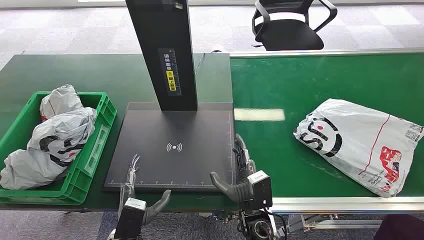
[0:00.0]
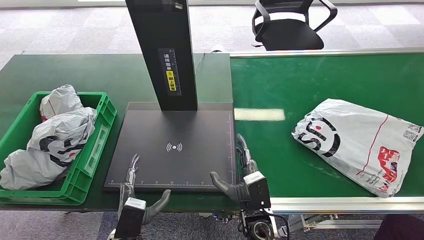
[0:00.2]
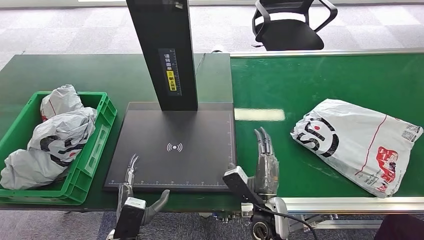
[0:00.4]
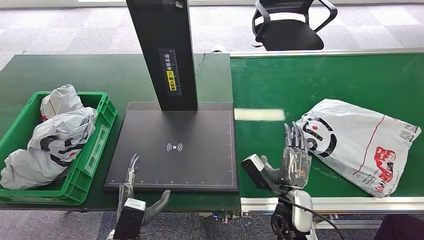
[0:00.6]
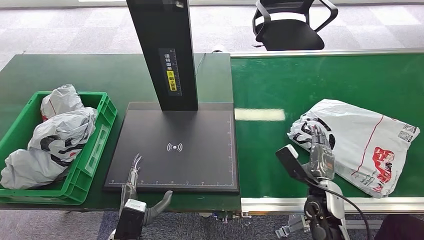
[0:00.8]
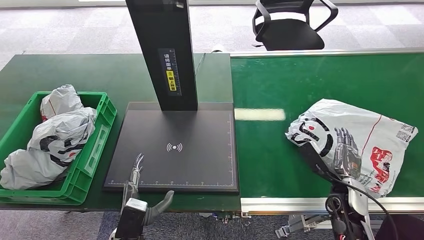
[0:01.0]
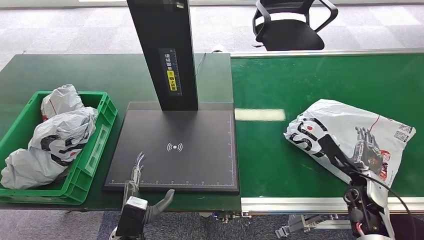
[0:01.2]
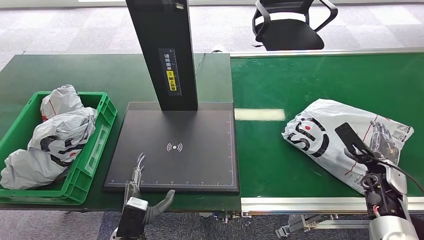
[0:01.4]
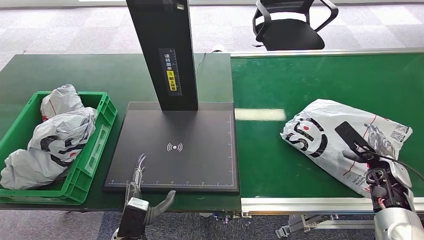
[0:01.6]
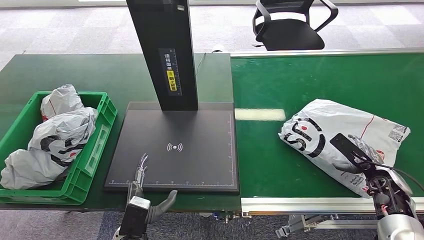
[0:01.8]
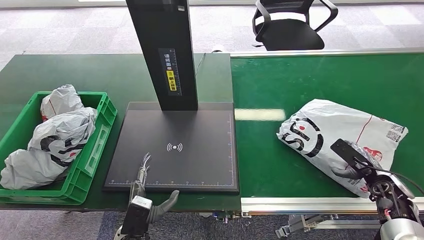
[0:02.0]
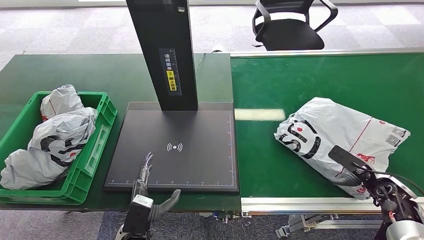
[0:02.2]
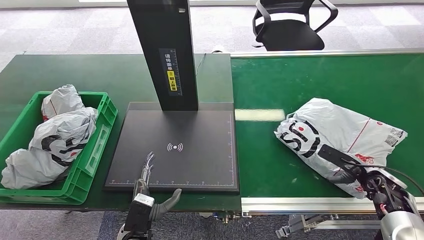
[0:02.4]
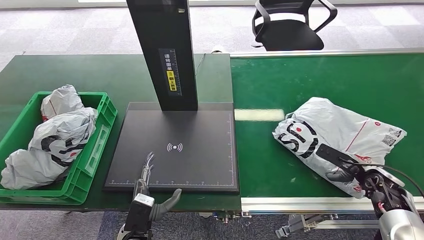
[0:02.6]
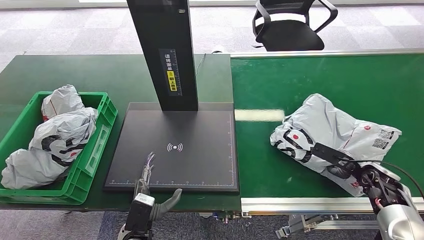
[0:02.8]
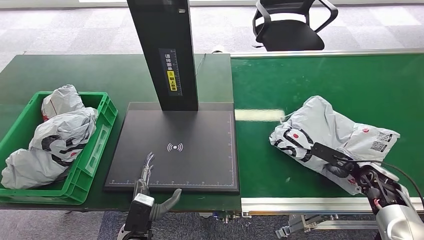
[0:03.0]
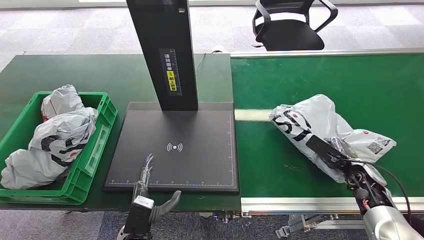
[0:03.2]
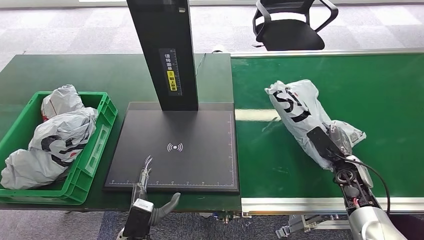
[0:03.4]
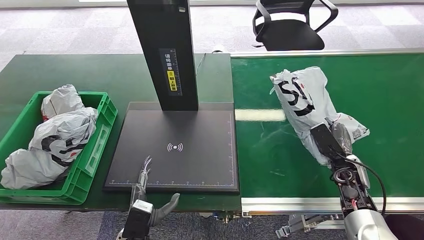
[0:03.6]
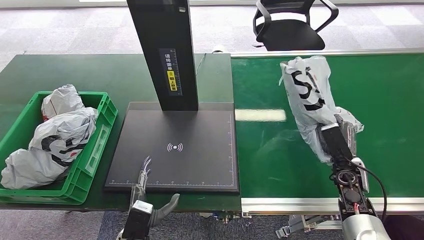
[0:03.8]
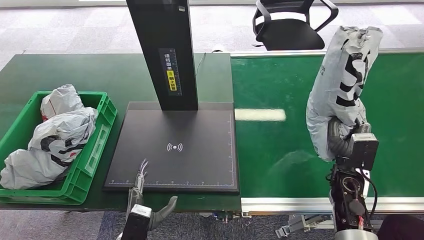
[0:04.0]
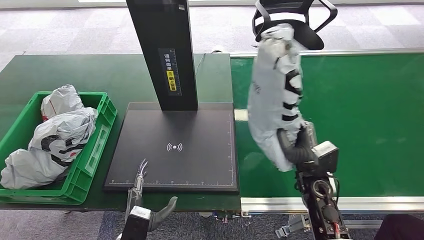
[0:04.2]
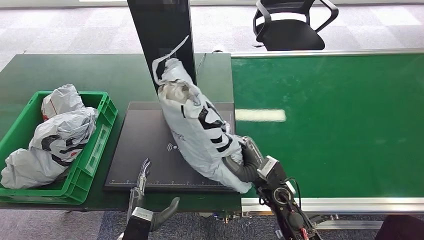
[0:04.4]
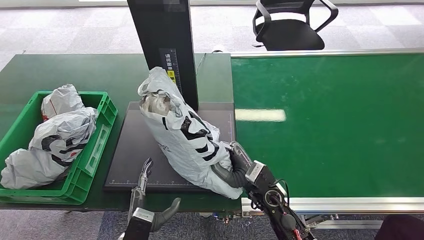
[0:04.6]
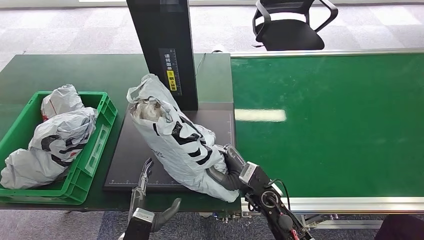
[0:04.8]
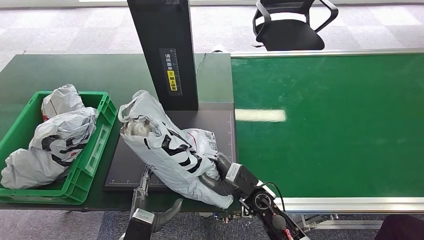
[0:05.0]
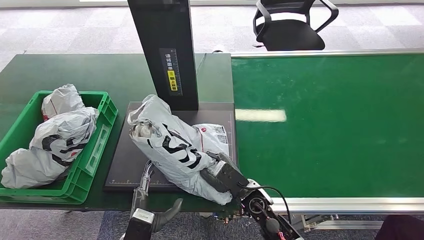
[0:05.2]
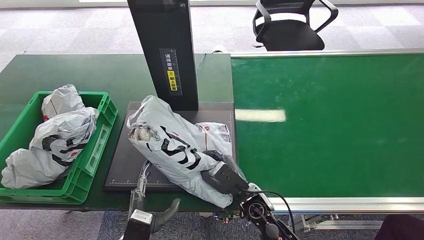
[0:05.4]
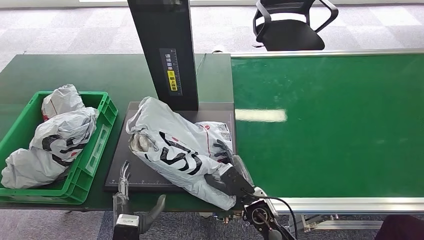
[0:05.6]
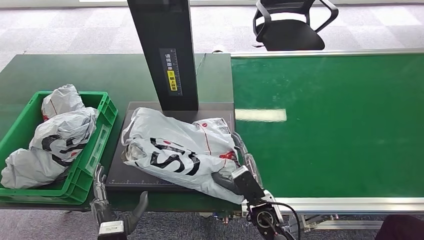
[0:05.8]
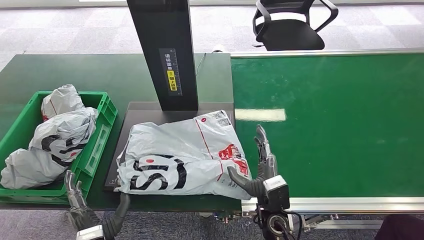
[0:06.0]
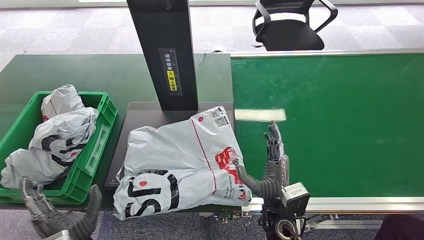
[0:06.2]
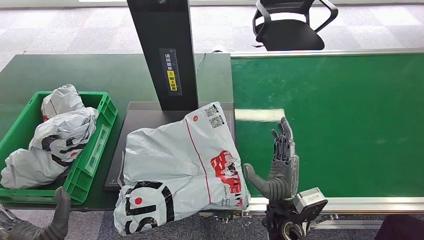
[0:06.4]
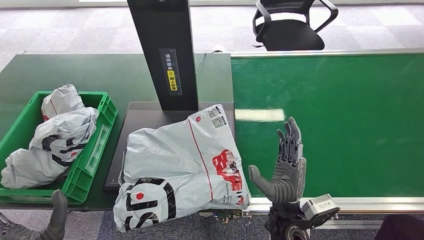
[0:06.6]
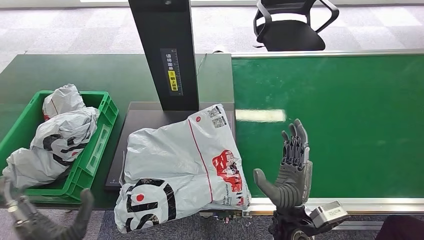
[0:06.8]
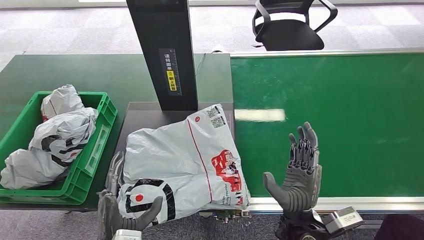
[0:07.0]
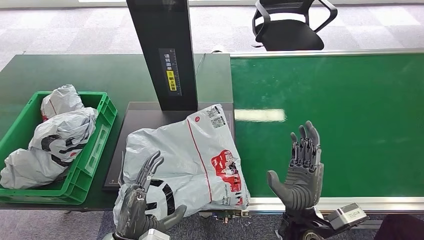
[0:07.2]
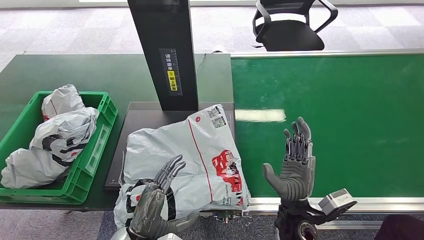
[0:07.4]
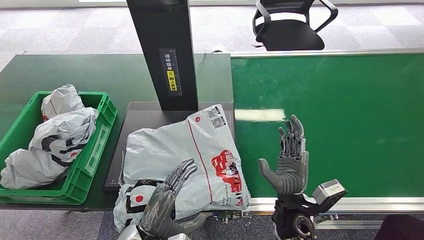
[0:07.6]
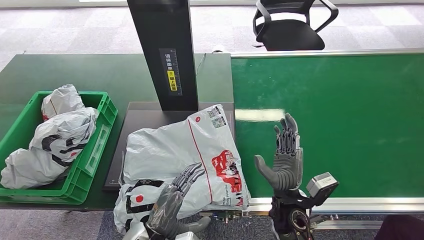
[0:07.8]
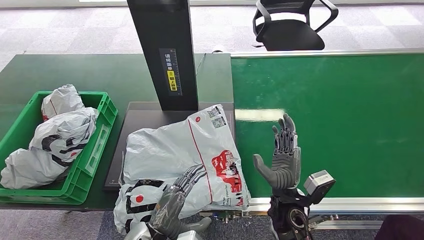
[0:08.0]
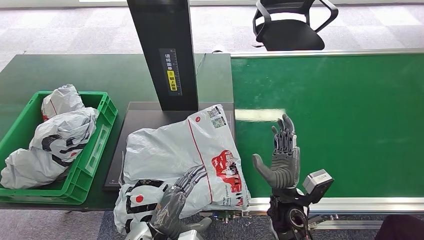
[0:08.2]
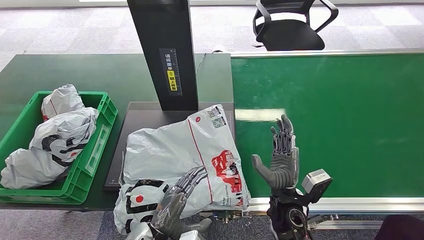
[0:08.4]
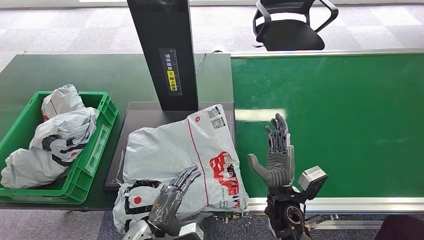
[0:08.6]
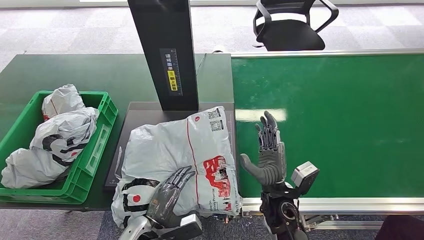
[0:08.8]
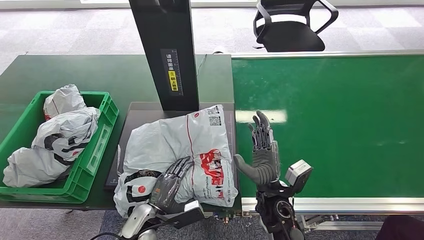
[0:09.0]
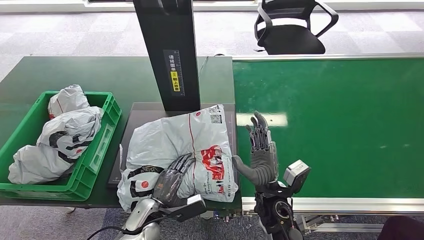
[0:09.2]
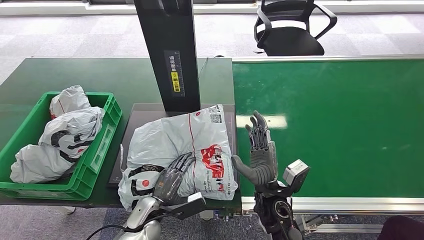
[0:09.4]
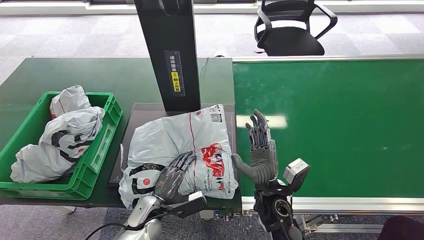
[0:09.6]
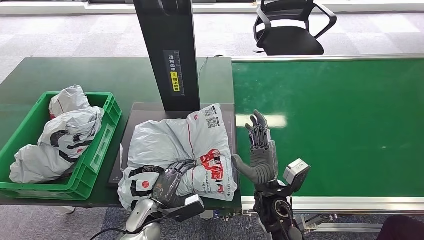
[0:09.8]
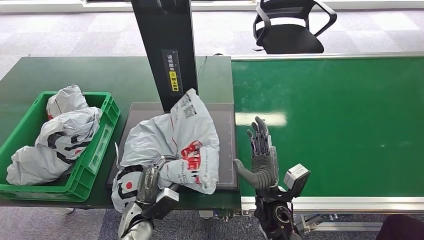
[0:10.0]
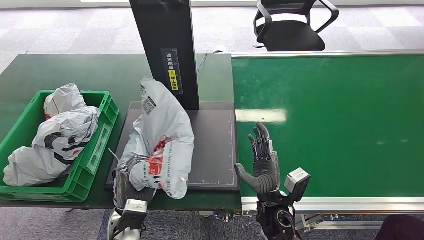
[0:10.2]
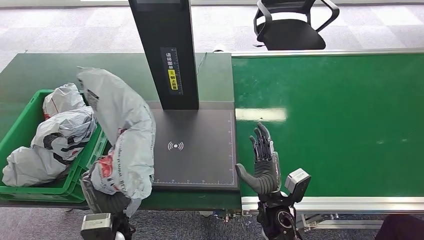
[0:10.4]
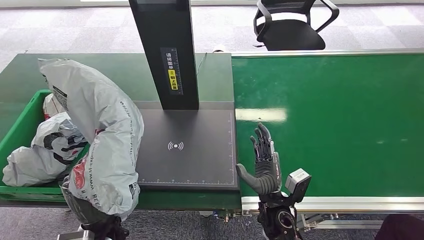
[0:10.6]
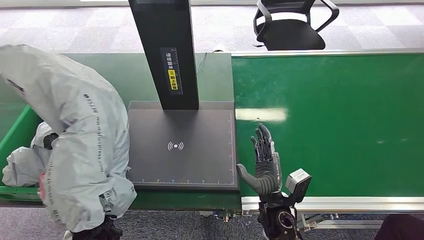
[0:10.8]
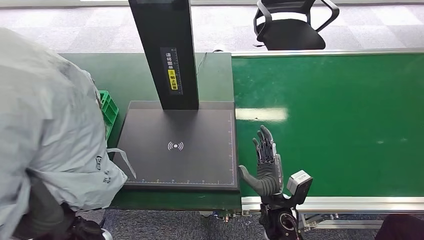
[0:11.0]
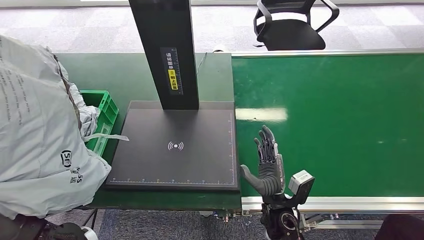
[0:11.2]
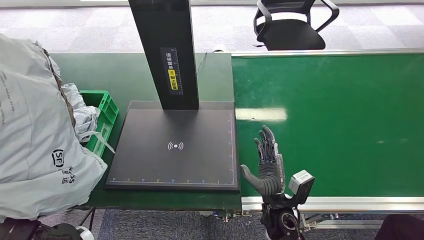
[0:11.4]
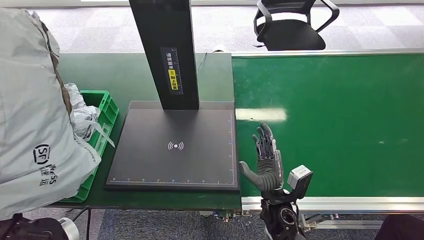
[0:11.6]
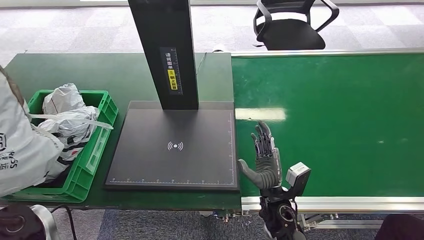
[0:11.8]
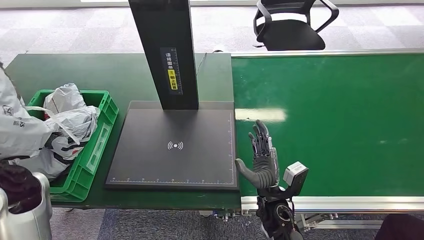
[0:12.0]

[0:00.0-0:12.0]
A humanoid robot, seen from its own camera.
Task of the whole recording: Weigh the package on the weighing device and place it in the left basket.
Step, 0:00.0 to 0:03.8: Pick up the package from the conveyor belt.
Step, 0:04.0 to 0:06.6: Place the package onto the inbound machine.
Step, 0:06.8 to 0:10.6: Pick up the package from the inbound machine.
0:04.4 to 0:06.0: The right hand goes some 5 cm backward.
0:06.0 to 0:07.6: The left hand heads to the right, covering roughly 5 cm.
0:10.4 to 0:12.0: The left hand shifts some 25 cm upward and to the left.

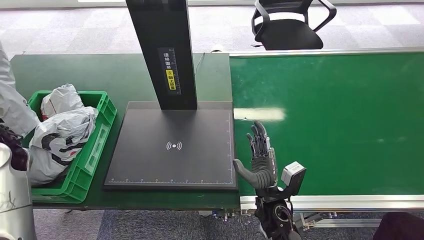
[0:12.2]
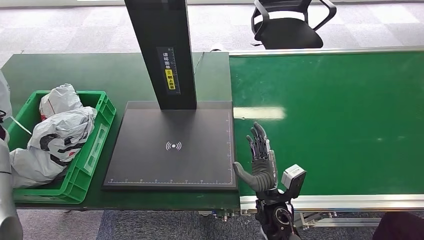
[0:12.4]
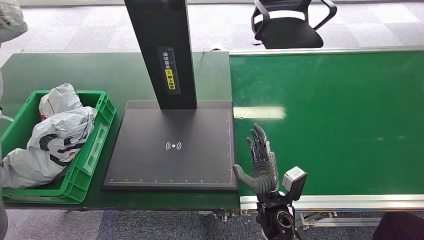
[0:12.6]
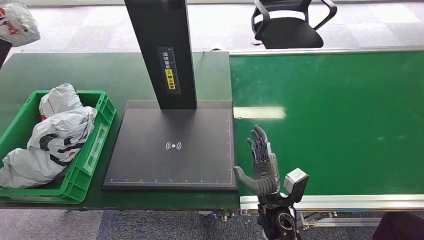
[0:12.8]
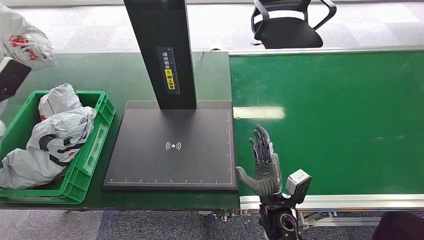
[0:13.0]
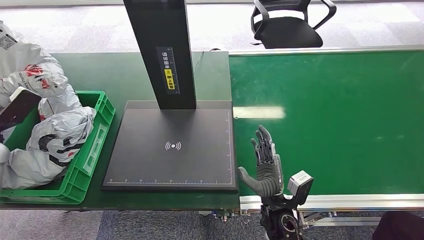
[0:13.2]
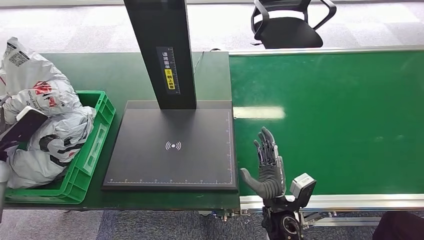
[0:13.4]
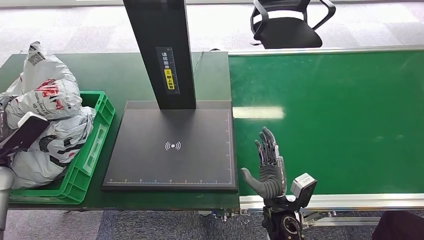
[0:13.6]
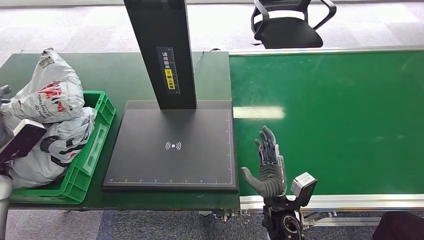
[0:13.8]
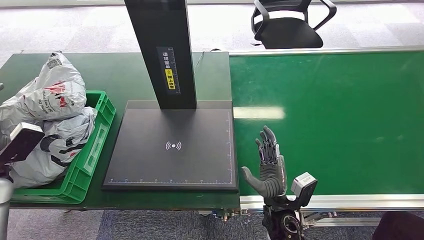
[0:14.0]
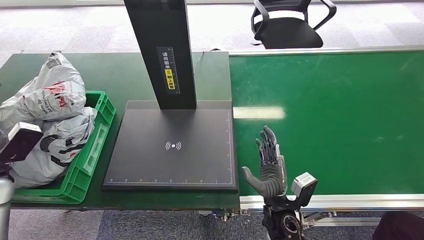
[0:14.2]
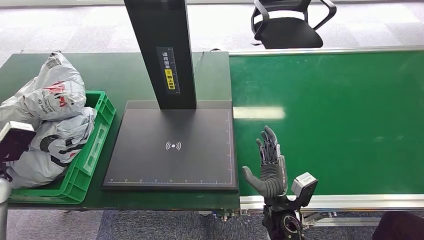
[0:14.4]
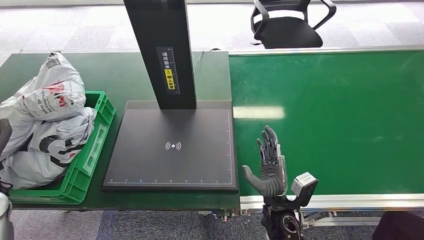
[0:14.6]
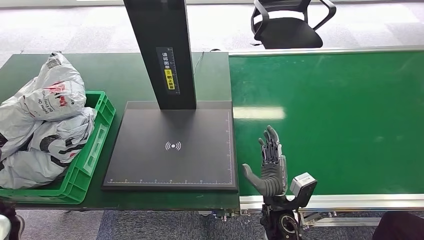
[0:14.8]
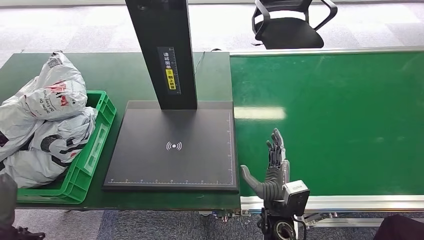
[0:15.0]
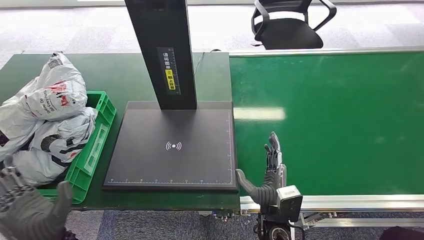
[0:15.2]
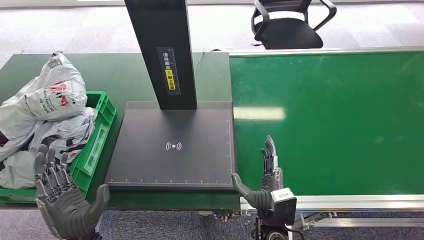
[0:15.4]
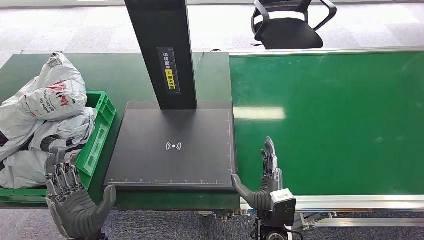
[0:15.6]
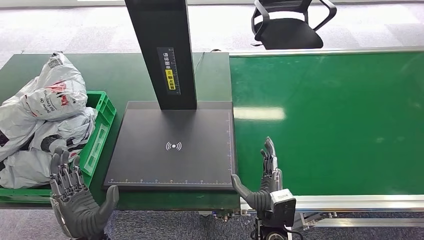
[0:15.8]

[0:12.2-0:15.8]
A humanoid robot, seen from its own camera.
Task of the whole recording: Weigh the package on the weighing device and place it in the left basket.
Step, 0:12.2 to 0:15.8: Place the package into the parcel locker.
0:12.2 to 0:14.0: The left hand moves downward, to the left and backward, about 10 cm.
0:14.0 to 0:15.8: The right hand ends up about 5 cm from where it was, while the left hand shifts approximately 30 cm to the right and backward.
